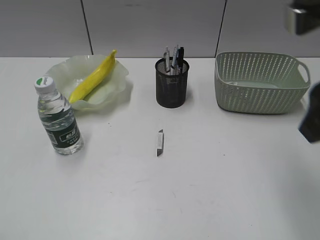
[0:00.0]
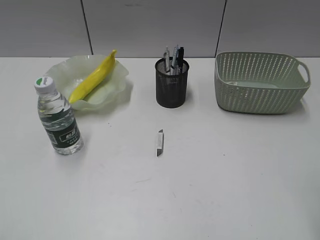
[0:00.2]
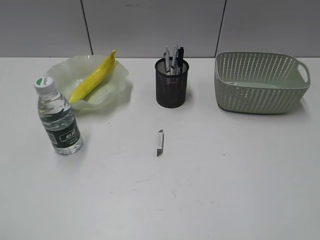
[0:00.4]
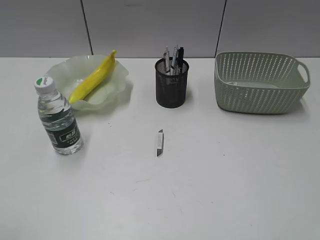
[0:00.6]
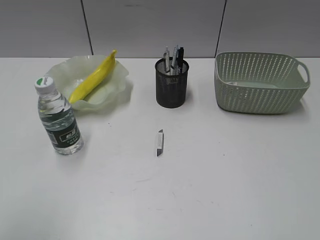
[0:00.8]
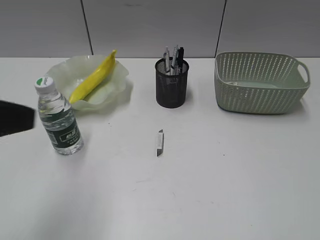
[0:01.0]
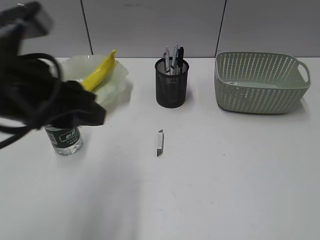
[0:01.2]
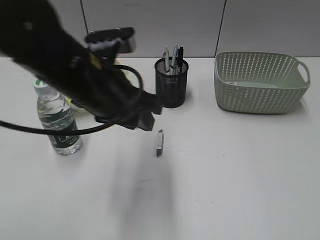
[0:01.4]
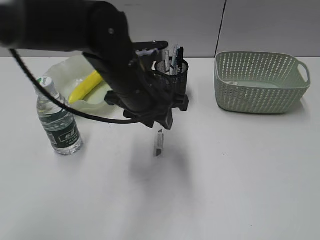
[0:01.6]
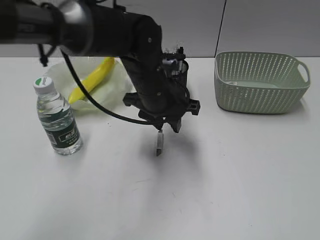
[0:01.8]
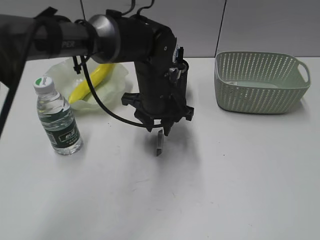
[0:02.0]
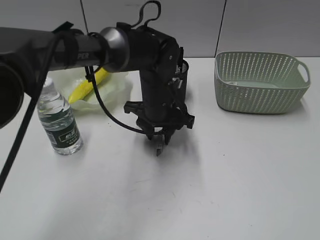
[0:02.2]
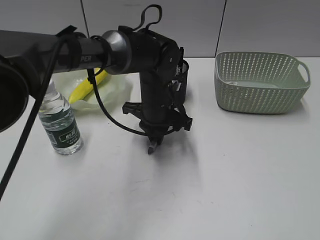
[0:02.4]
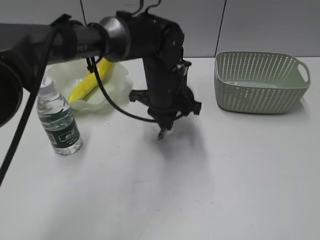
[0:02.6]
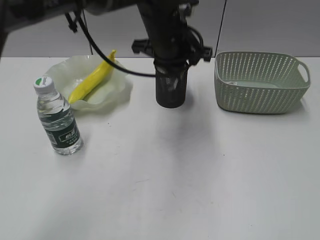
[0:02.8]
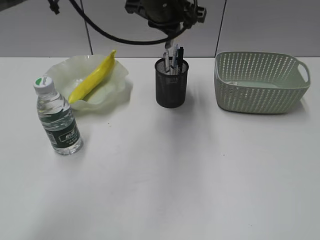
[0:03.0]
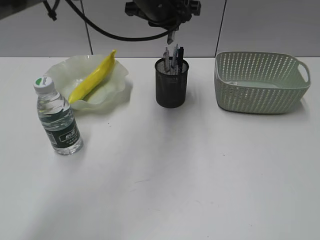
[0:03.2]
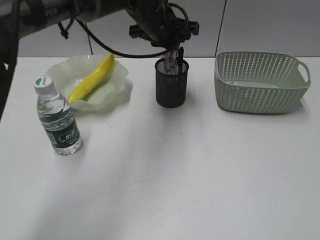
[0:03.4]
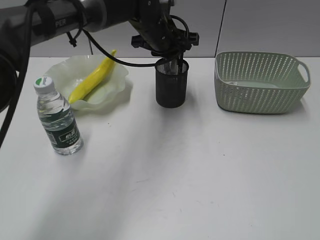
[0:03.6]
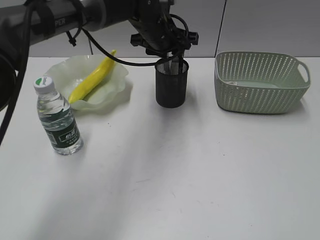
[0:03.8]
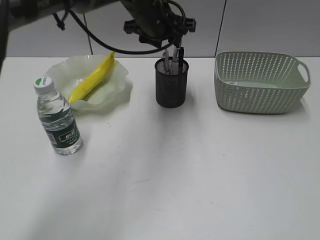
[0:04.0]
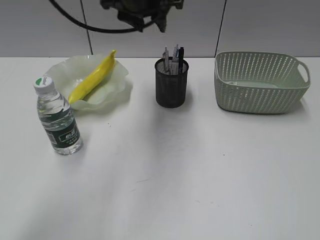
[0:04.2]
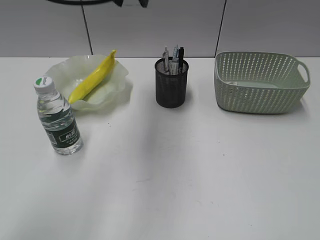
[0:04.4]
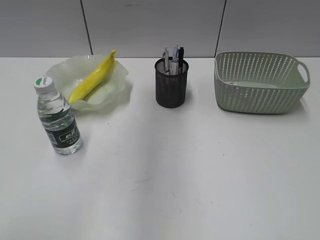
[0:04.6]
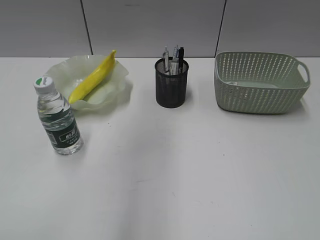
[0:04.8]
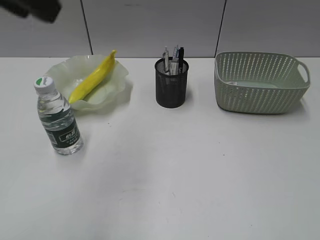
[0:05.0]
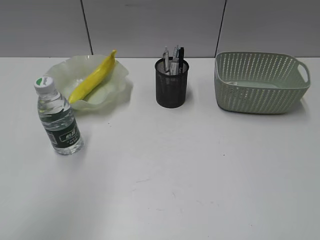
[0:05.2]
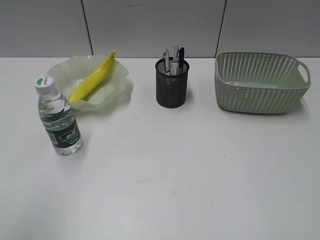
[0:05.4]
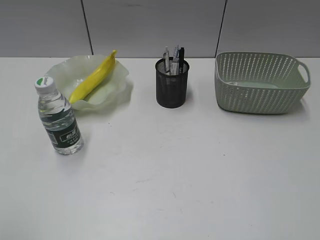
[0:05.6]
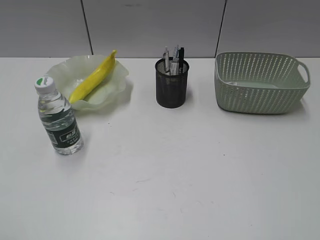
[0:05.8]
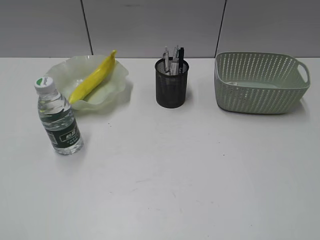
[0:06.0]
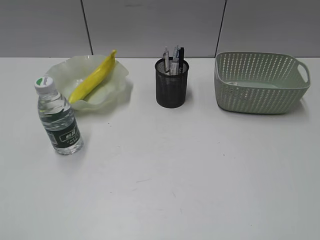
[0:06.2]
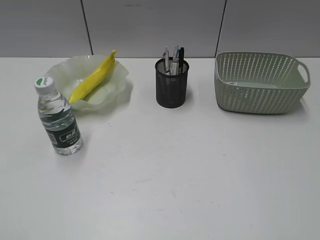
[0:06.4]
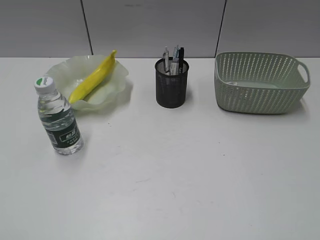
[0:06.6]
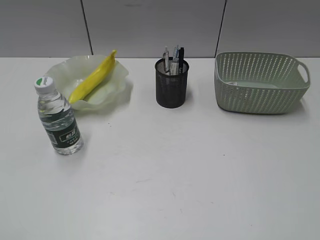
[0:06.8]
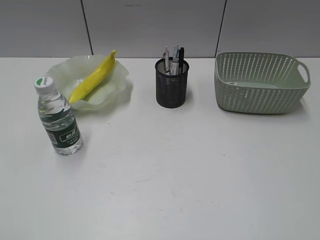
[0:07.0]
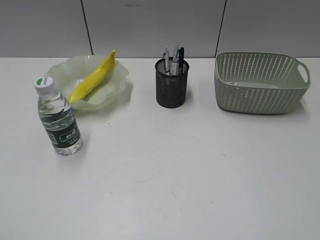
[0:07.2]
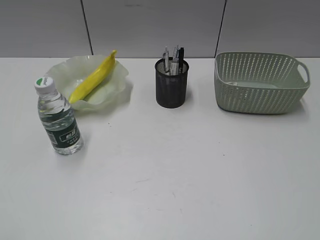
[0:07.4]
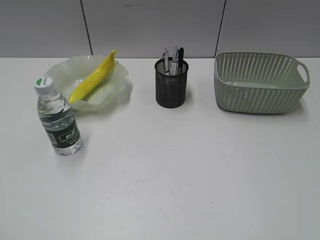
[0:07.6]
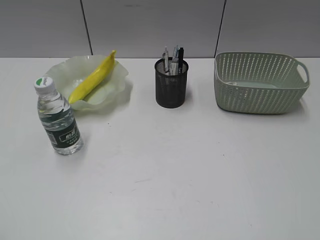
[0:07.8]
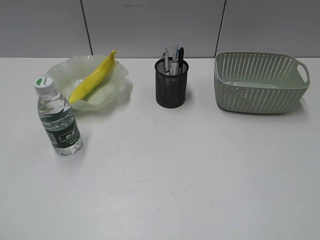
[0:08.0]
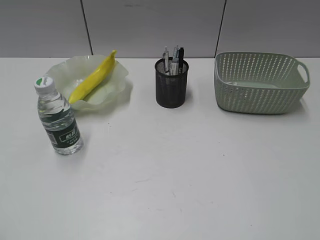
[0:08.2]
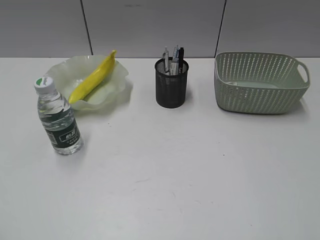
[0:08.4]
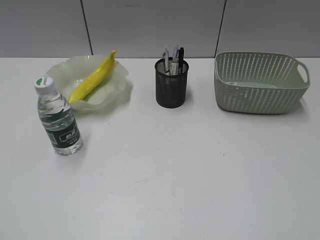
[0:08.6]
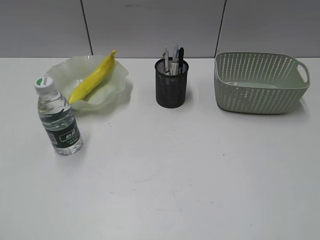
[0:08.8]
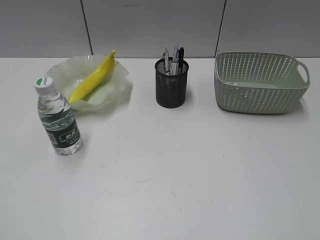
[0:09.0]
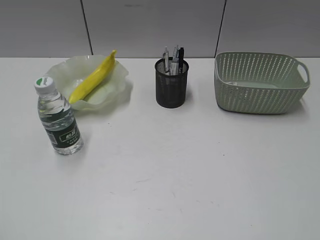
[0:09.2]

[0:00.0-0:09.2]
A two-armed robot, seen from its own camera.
Step, 0:00.0 to 0:02.4: Grasp the eraser with left gripper.
Step, 0:02.6 to 0:03.8: Place the eraser in pen holder with left gripper.
0:00.0 to 0:01.6: The left gripper goes some 40 cm forward and to the right. Meanwhile the right gripper goes approximately 25 cm backward and to the right.
0:01.6 to 0:03.0: The left gripper shifts approximately 15 cm forward and upward, and closes its fingers.
0:03.0 to 0:04.6: The left gripper travels upward, to the left and backward by approximately 20 cm, and opens up.
0:04.6 to 0:06.2: The left gripper moves backward, to the left and downward, about 40 cm.

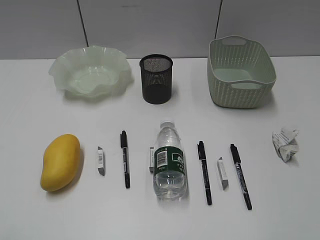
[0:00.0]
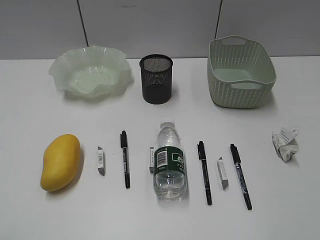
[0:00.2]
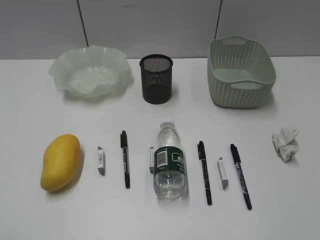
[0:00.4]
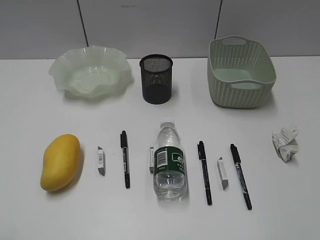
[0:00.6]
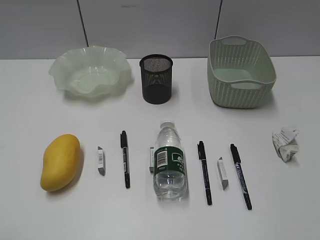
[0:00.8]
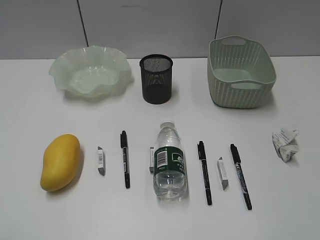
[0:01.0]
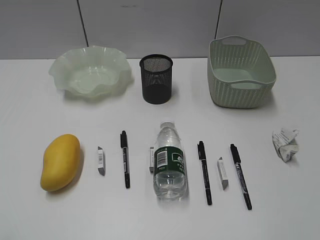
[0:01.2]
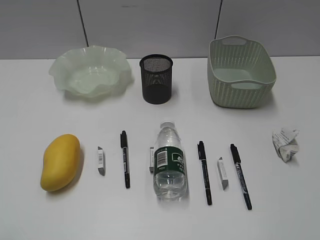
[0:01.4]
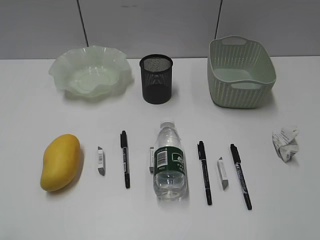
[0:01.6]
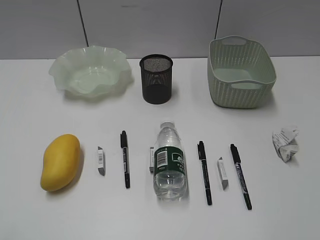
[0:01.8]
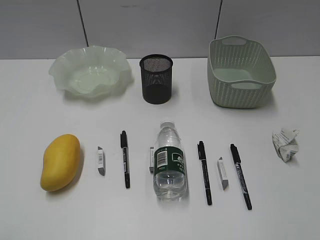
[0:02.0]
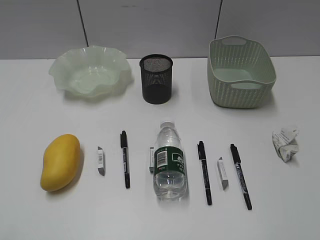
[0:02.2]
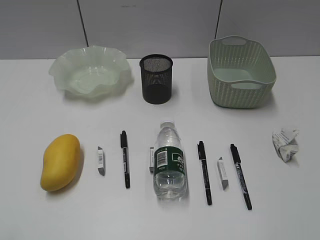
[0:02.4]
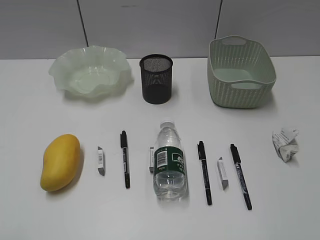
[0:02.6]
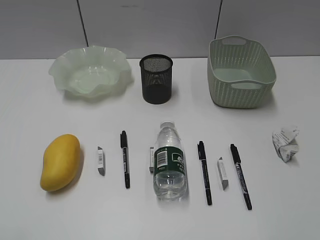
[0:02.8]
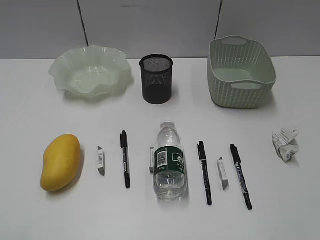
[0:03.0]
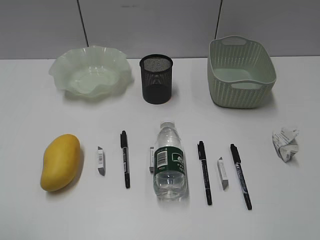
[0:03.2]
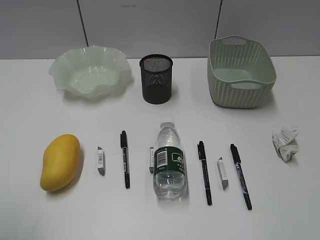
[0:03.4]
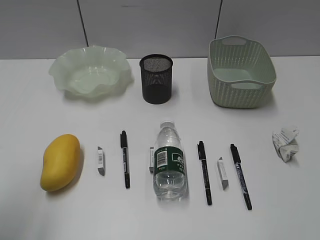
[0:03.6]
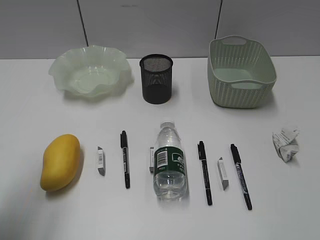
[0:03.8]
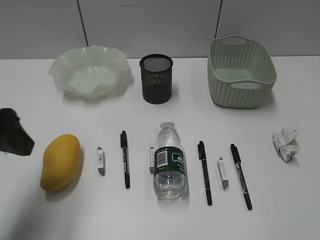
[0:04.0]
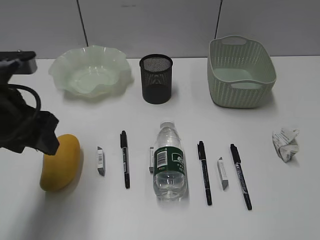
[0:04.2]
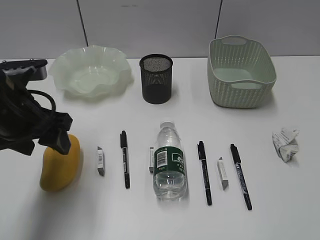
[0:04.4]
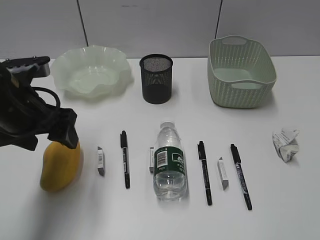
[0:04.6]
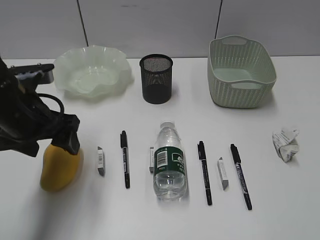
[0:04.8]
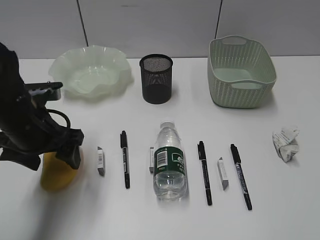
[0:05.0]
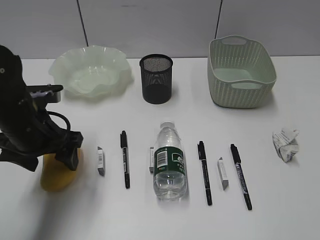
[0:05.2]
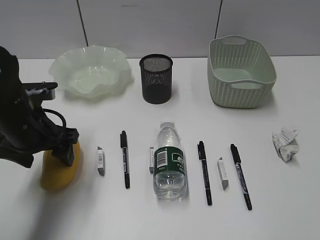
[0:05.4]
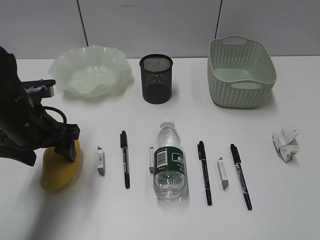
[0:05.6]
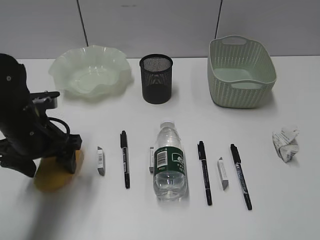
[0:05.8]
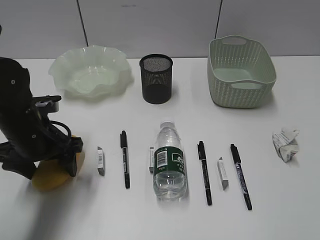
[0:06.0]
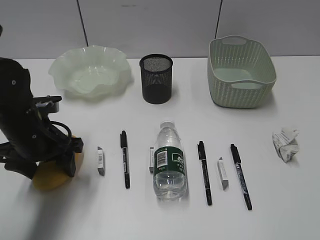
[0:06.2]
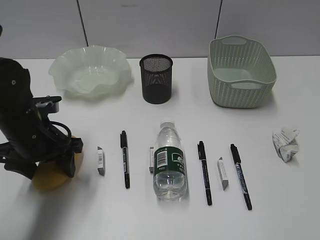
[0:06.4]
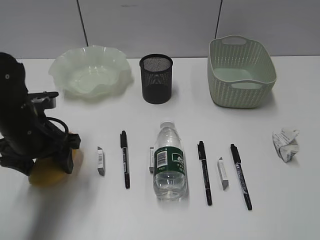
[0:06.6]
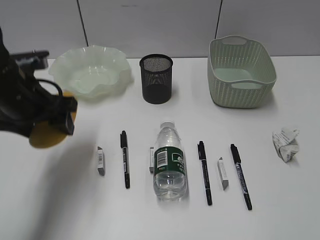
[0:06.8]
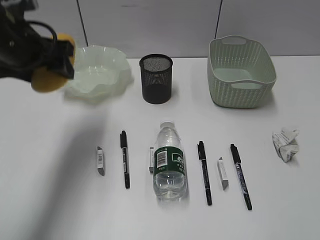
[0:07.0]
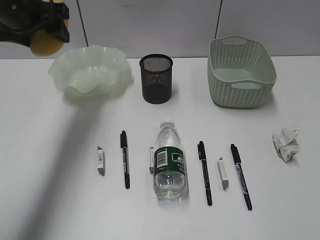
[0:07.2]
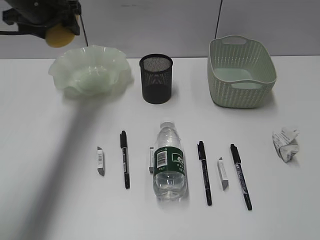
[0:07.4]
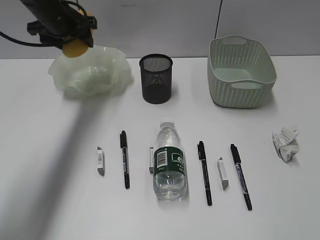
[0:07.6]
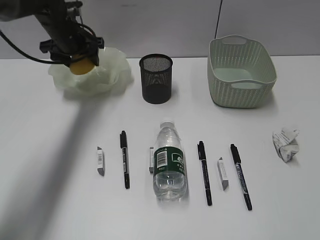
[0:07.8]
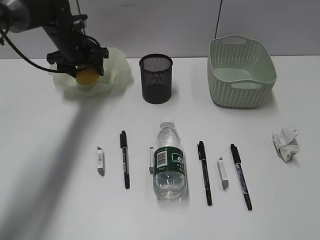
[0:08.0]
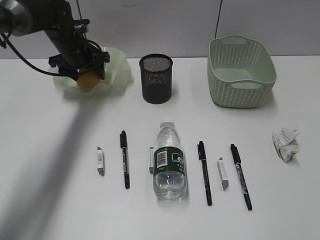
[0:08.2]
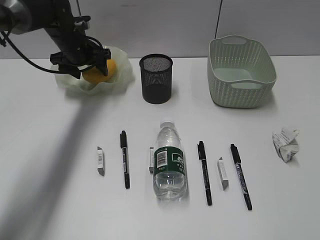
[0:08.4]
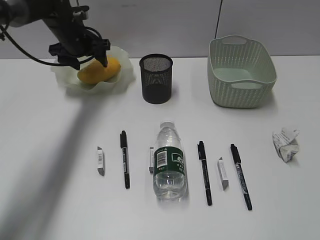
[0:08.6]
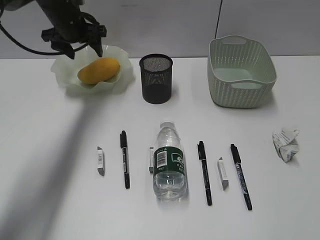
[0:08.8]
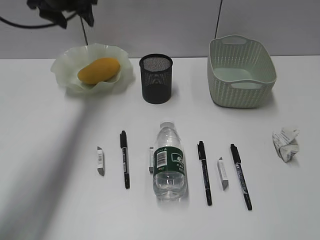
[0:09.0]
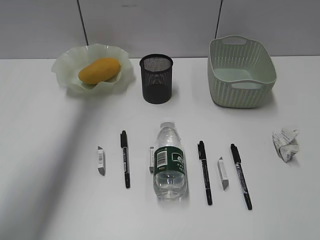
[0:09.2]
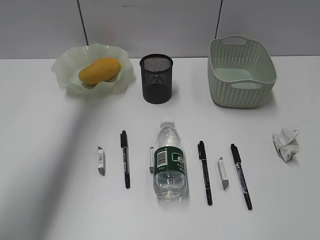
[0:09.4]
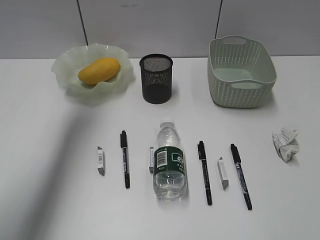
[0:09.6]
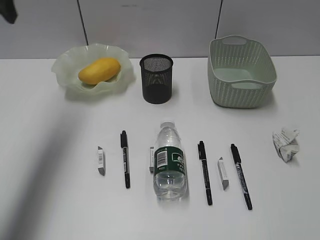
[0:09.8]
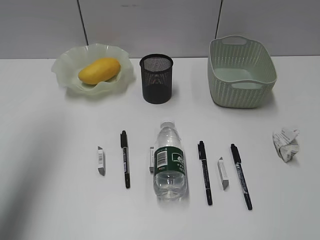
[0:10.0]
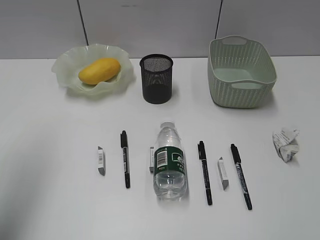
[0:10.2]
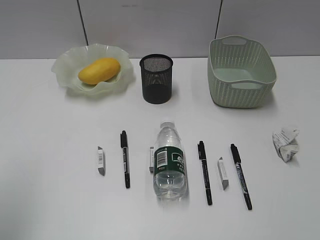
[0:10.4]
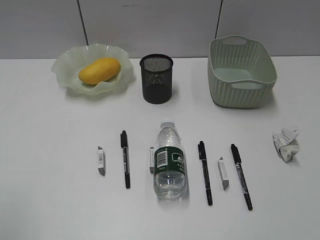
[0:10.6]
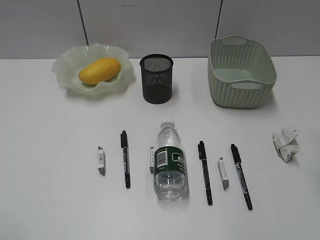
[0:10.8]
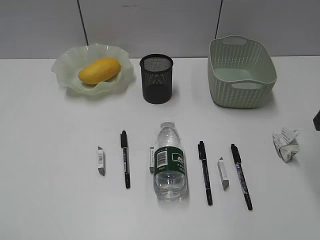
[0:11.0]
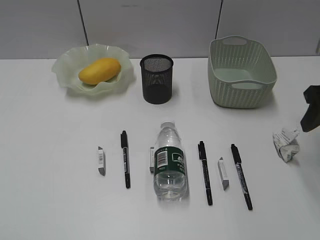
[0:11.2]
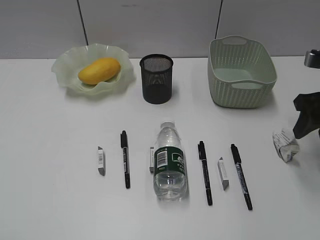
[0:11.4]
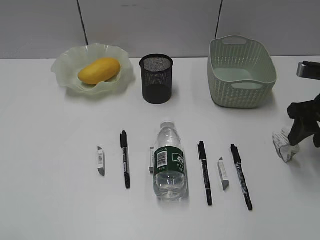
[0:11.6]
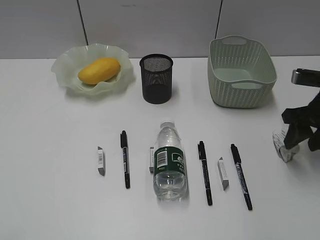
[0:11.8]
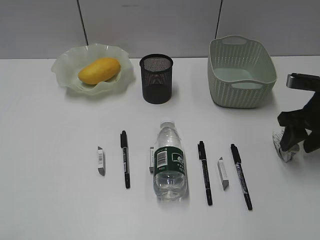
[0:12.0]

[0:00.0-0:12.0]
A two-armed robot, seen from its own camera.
Step, 0:04.0 to 0:06.4: Grasp the mango with left gripper.
Step, 0:06.6 to 0:08.8: Place the mango in the plate with left gripper.
0:03.0 to 0:04.4: The left gripper heads forward and to the right, covering about 30 cm.
0:04.4 to 0:06.0: The left gripper is displaced downward by some 10 cm.
0:06.0 to 0:07.6: The left gripper shifts about 25 cm forward and upward.
0:07.6 to 0:09.0: The left gripper goes approximately 10 cm upward.
0:09.0 to 0:10.4: The right gripper moves forward, roughly 10 cm. The left gripper heads backward, covering about 40 cm.
0:10.4 to 0:12.0: The right gripper travels forward and downward by some 30 cm.

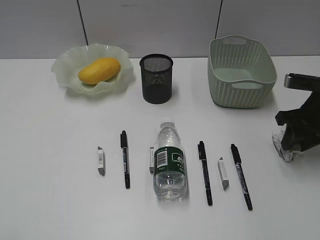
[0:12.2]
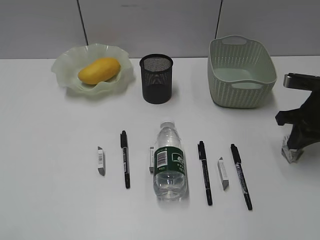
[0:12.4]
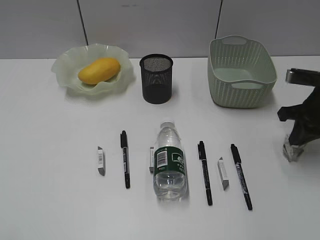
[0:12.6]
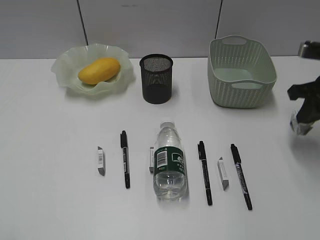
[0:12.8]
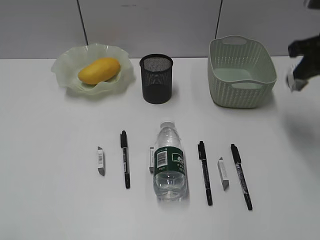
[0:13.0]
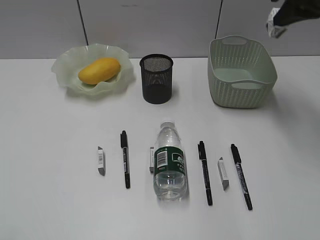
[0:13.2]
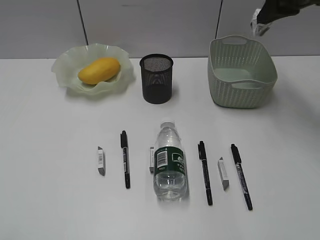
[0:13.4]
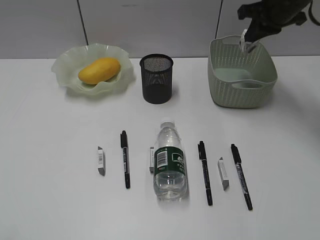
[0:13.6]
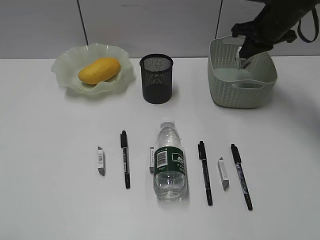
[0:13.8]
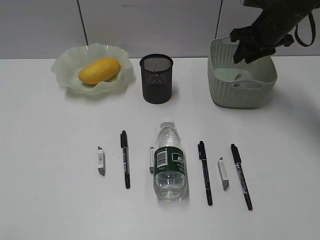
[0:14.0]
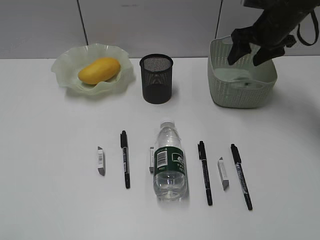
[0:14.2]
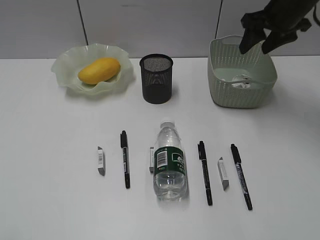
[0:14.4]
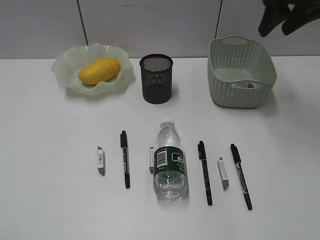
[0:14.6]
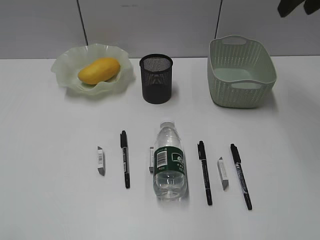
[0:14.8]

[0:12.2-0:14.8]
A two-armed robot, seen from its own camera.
Step, 0:12.6 to 0:14.2: Place the waste paper in the basket with right gripper.
0:12.2 to 0:13.4: The right gripper is displaced upward and forward by some 20 cm, and closes its fingers.
0:13.4 to 0:14.8: The right gripper heads upward and backward, covering some 10 cm, and opens its fingers.
